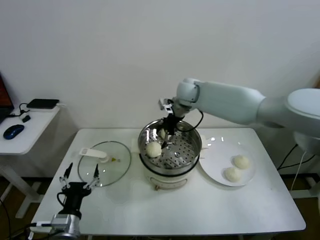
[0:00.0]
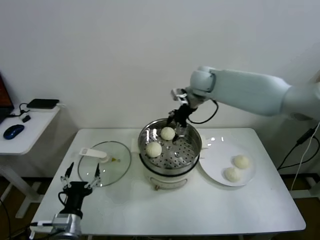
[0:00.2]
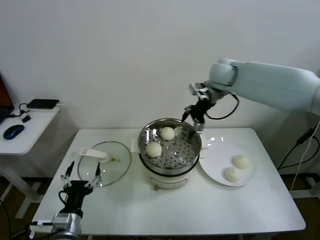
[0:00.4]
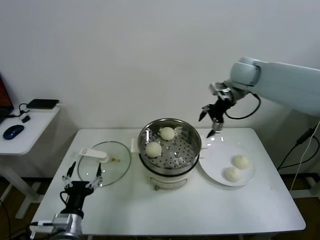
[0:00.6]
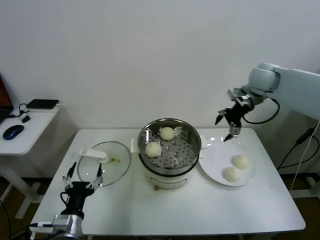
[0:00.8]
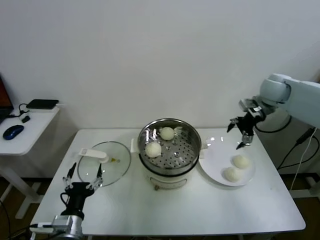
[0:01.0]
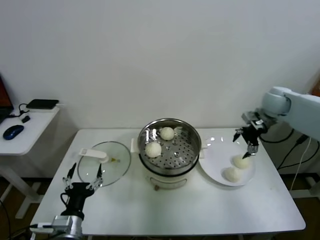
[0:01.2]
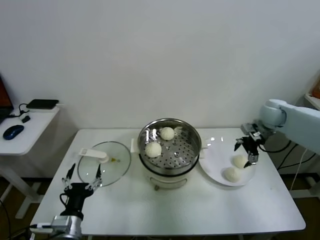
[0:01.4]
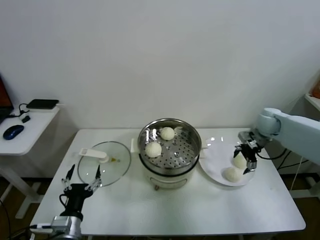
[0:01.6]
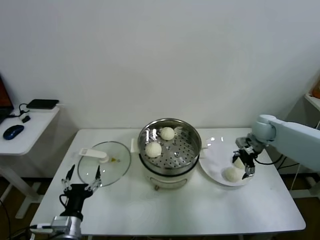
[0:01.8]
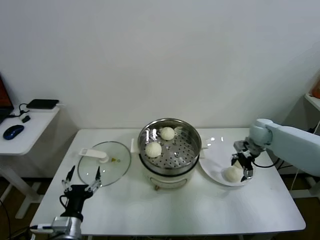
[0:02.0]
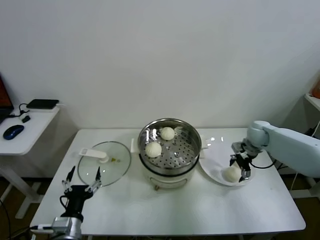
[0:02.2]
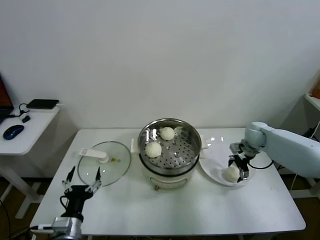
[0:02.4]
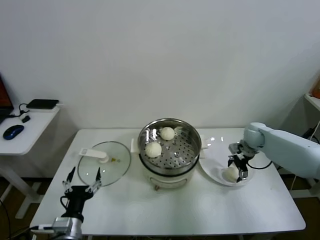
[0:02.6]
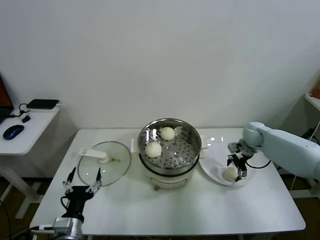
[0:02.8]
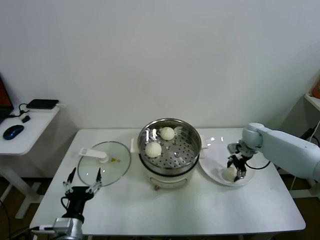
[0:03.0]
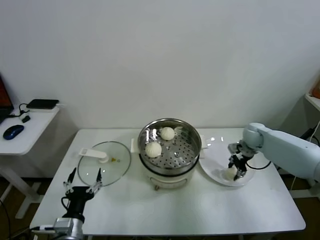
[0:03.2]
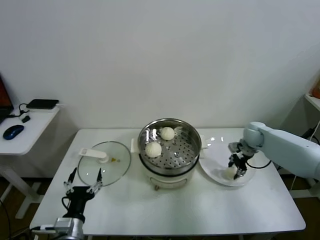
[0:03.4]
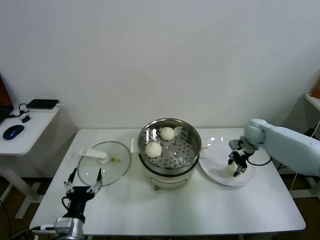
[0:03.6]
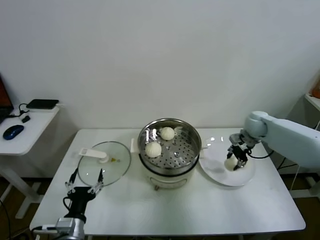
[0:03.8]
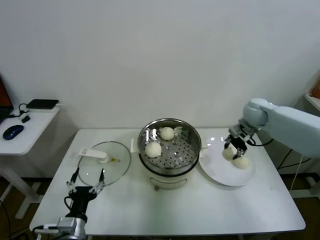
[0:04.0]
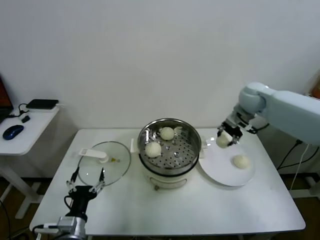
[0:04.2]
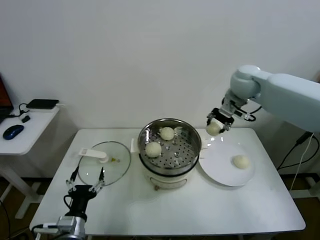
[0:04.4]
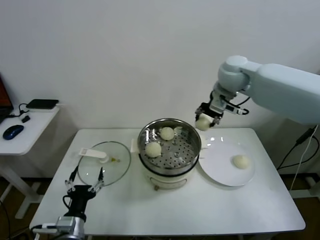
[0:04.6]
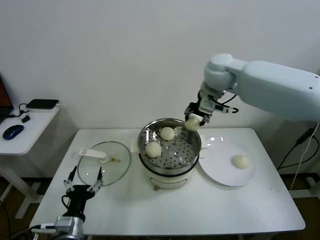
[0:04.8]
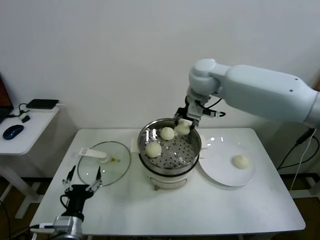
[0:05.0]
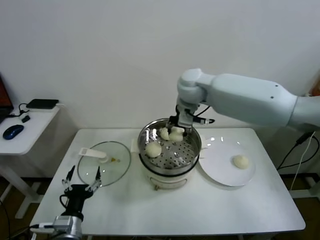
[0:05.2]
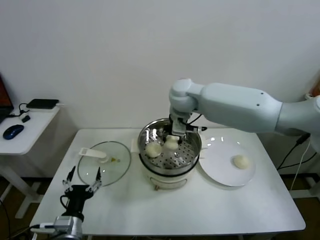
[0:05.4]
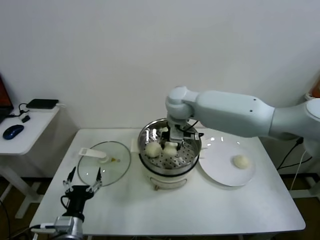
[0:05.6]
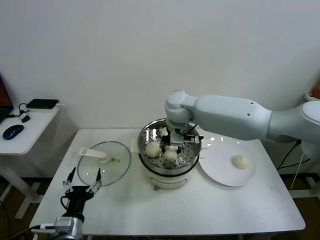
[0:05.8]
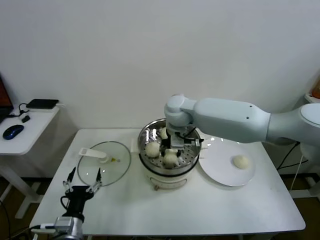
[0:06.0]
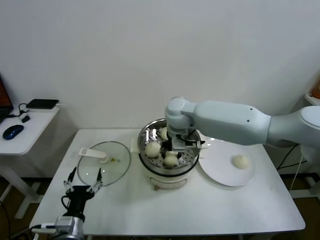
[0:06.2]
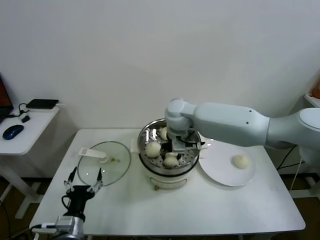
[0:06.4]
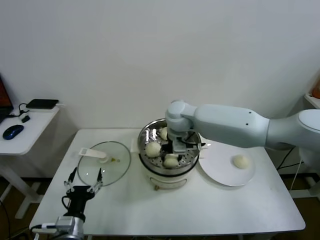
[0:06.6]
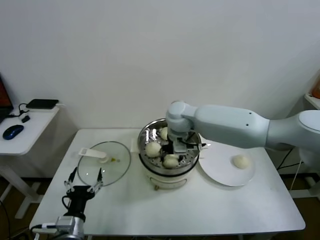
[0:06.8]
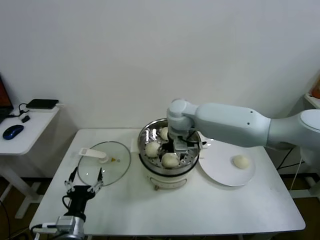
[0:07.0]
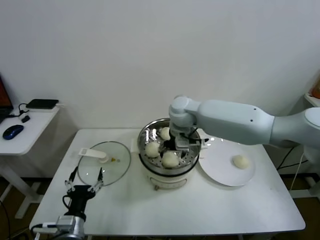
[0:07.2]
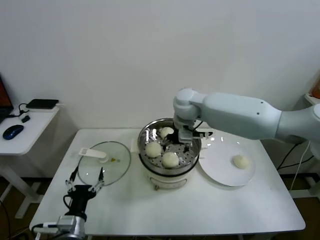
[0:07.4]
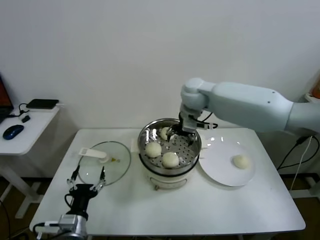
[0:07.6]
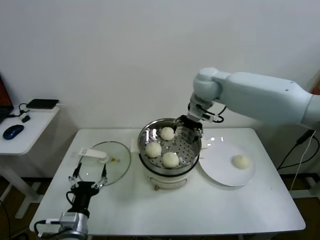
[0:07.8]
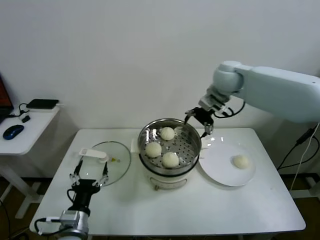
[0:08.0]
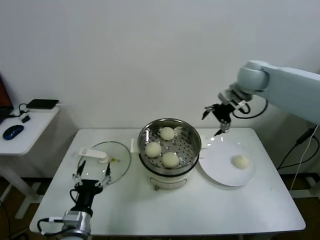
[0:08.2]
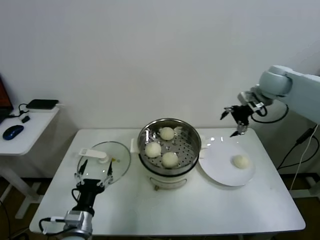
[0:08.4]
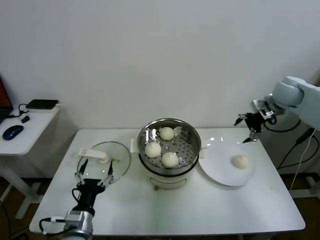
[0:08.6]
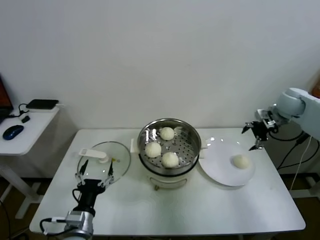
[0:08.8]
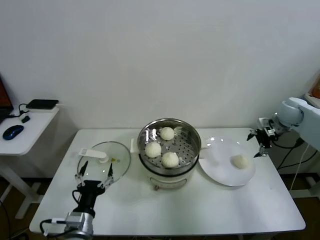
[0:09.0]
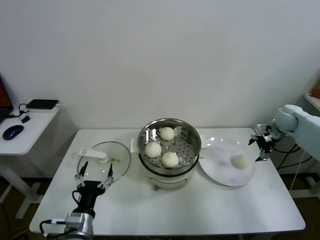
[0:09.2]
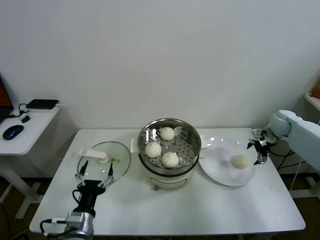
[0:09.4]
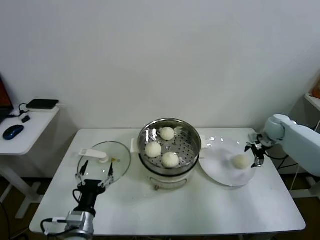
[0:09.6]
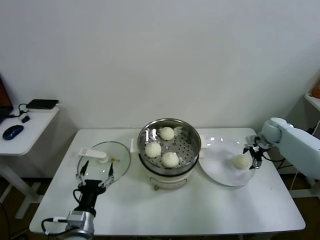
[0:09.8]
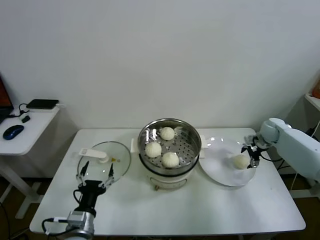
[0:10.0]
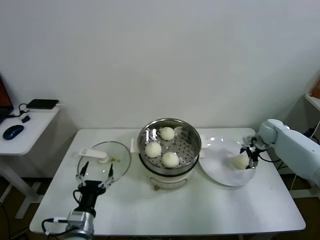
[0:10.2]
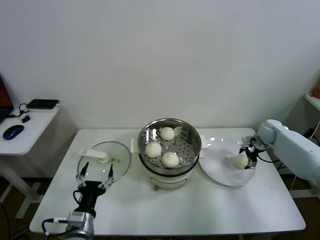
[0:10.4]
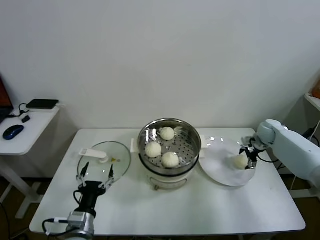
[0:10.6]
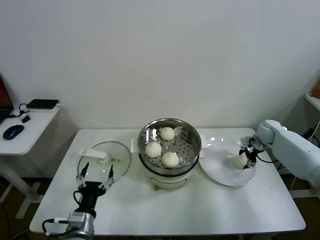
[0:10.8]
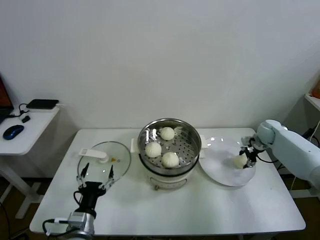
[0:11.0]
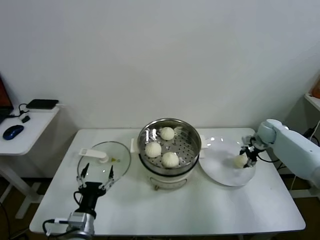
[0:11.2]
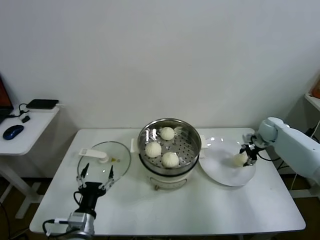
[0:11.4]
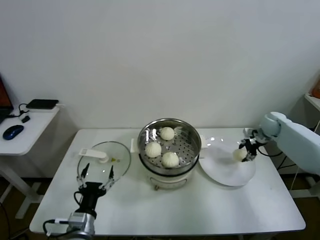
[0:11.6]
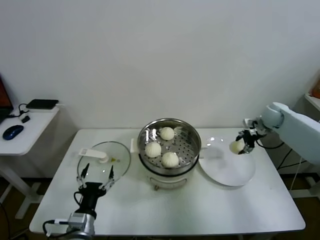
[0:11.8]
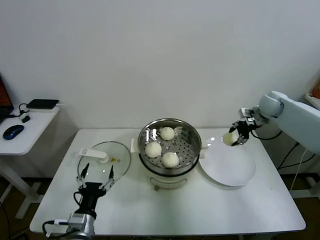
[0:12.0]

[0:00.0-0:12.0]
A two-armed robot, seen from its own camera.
Task of the whole recording: take steamed baozi put them in steamer.
Step, 0:00.0 to 0:03.2: Grasp the baozi in the plate with right gripper.
Step, 0:03.6 to 0:07.0: Place the baozi on the steamer with right gripper.
Step, 0:07.2 to 0:11.0: Grasp the baozi in the plate with right gripper.
0:00.0 to 0:01.6: The right gripper heads to the right, covering approximately 30 cm.
0:01.6 to 0:03.0: The right gripper heads downward, covering roughly 10 cm, and closes up.
0:03.0 to 0:04.4: The right gripper moves upward and to the left, some 30 cm, and closes.
0:04.4 to 0:06.0: The right gripper is displaced to the left and downward by some 20 cm.
0:06.0 to 0:07.6: The right gripper heads to the right, covering some 5 cm, and opens.
0:07.6 to 0:09.0: The right gripper heads to the right, covering approximately 35 cm.
0:09.0 to 0:10.4: The right gripper shifts some 15 cm downward.
0:10.4 to 0:12.0: The right gripper is displaced upward by about 15 cm, and closes its fingers.

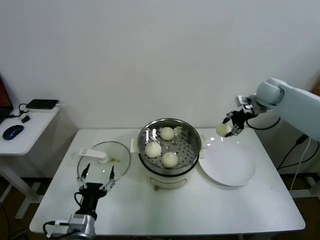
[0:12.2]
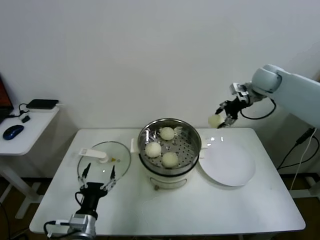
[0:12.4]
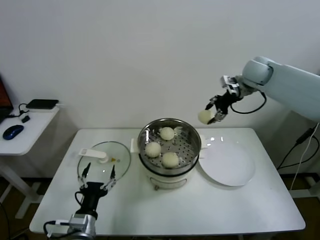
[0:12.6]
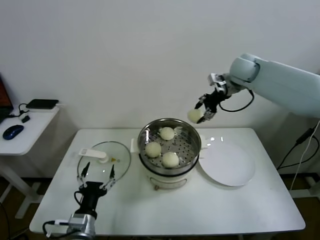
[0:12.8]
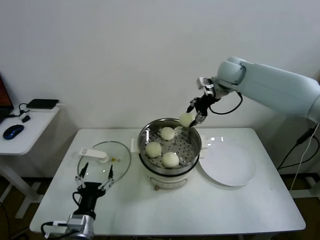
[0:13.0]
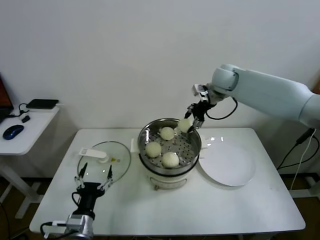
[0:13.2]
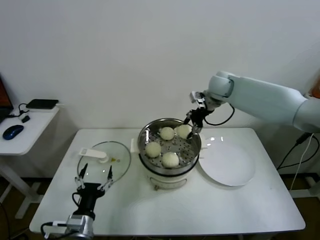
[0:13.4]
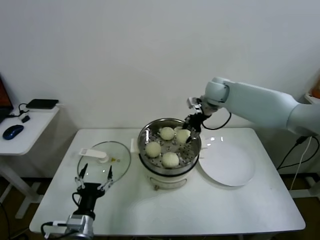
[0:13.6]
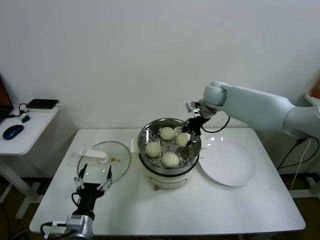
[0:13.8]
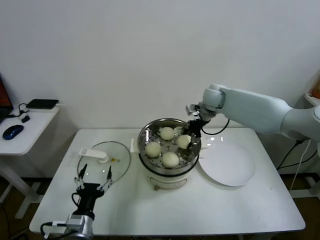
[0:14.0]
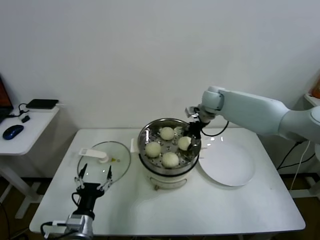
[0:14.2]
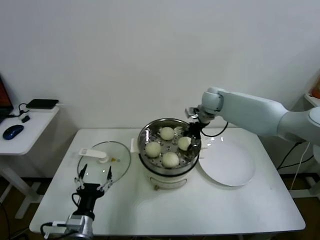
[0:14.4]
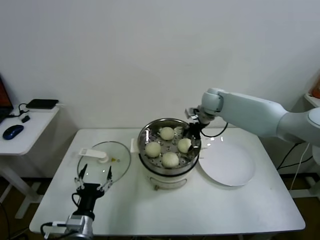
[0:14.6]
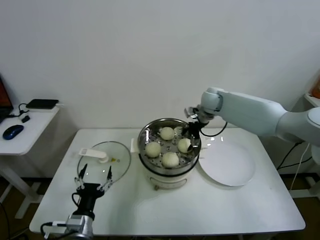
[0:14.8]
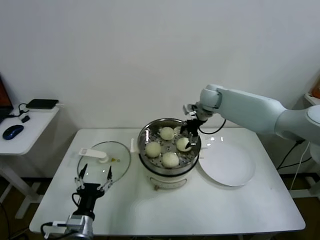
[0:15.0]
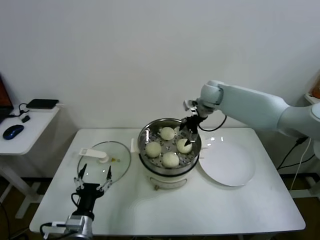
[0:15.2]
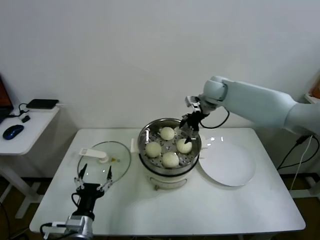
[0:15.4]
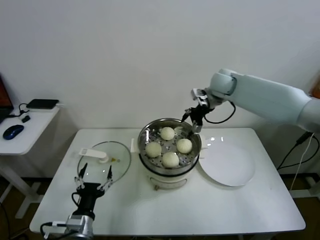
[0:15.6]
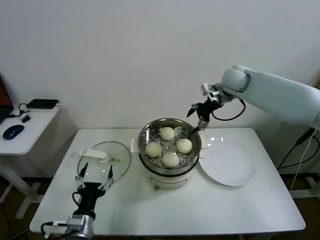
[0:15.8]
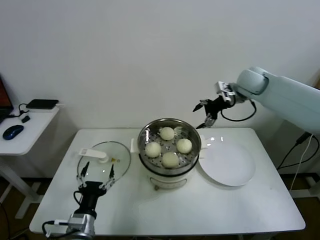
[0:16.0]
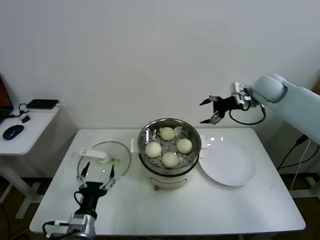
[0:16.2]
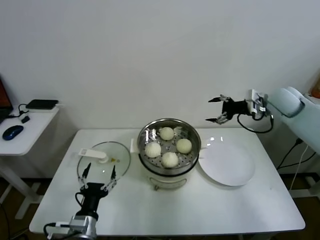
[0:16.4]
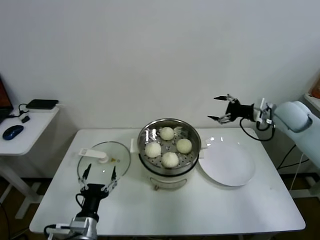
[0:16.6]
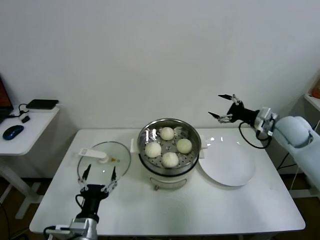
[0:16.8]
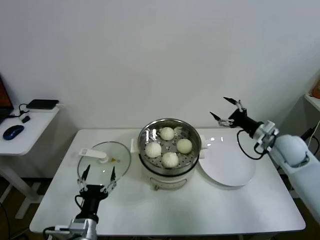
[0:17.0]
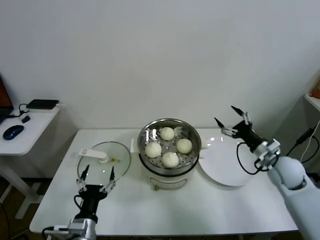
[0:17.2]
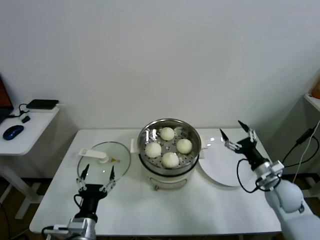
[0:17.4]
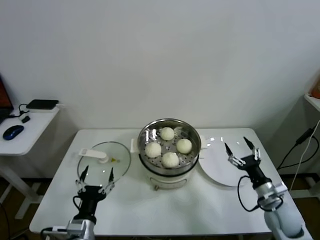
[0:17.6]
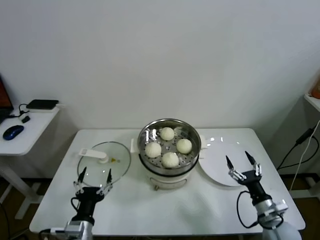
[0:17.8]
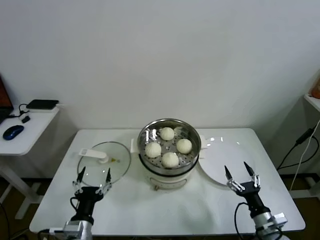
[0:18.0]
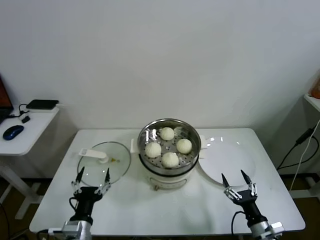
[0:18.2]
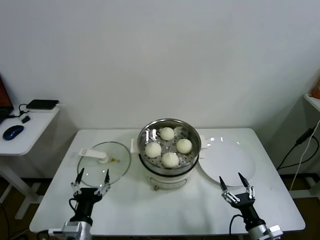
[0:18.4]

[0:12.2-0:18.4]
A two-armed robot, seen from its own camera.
Task of the whole recording: take steamed baozi put them in steamer.
Step, 0:12.2 to 0:14.8: Place the baozi on the steamer with right gripper.
0:12.2 to 0:13.8: The right gripper travels to the left by roughly 20 cm.
0:13.8 to 0:15.4: The right gripper opens.
0:15.4 to 0:16.8: The right gripper heads to the right and backward, covering approximately 25 cm.
0:16.8 to 0:18.4: The right gripper goes about 40 cm backward and downward.

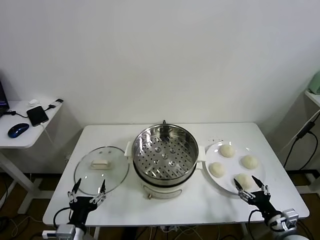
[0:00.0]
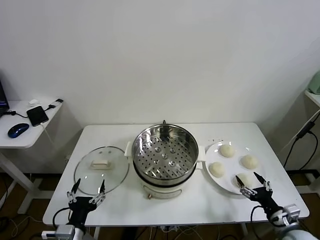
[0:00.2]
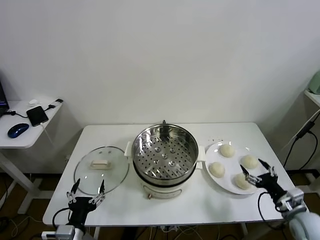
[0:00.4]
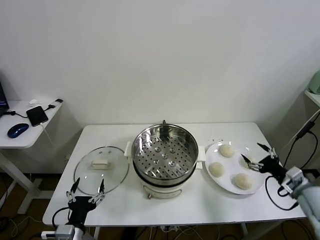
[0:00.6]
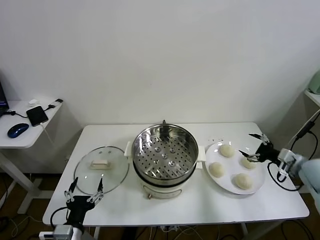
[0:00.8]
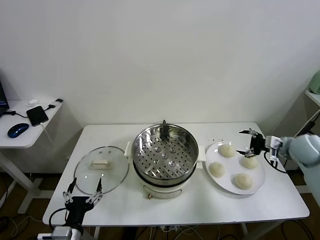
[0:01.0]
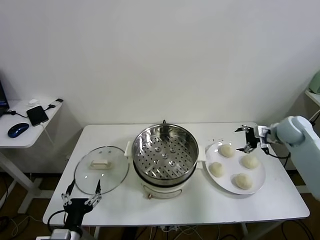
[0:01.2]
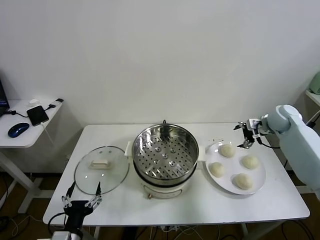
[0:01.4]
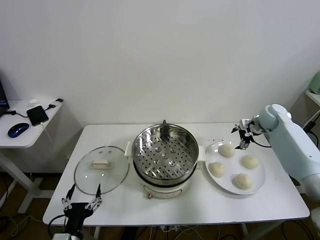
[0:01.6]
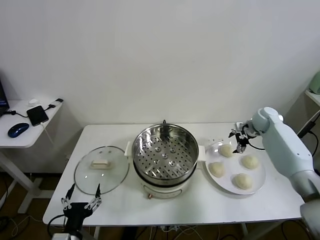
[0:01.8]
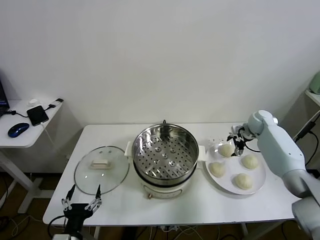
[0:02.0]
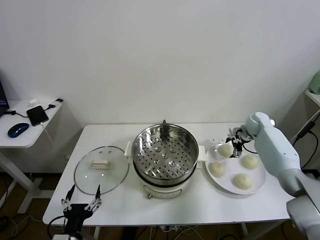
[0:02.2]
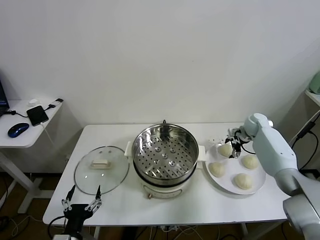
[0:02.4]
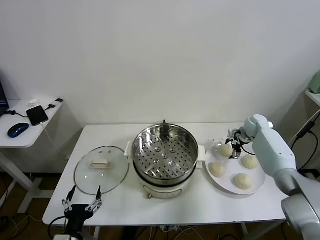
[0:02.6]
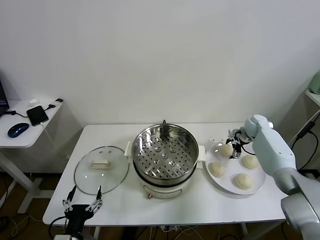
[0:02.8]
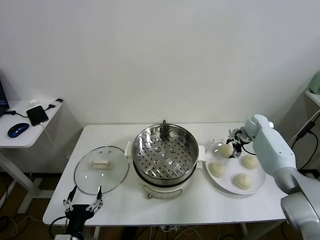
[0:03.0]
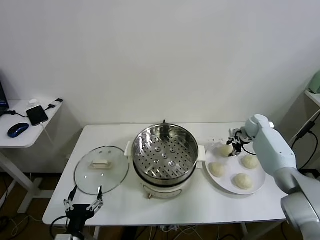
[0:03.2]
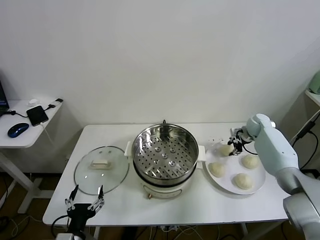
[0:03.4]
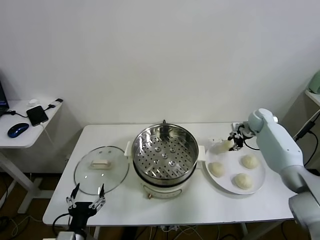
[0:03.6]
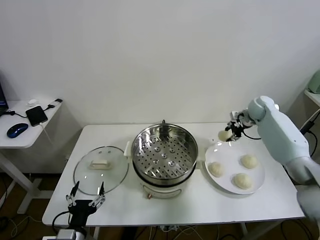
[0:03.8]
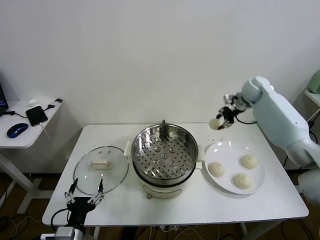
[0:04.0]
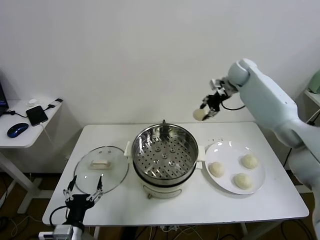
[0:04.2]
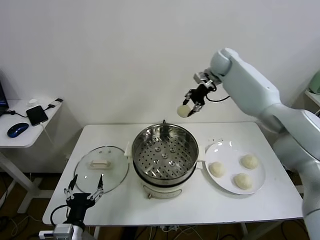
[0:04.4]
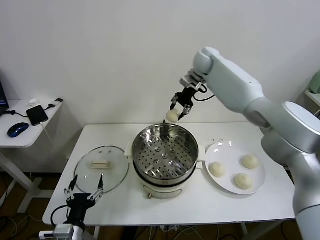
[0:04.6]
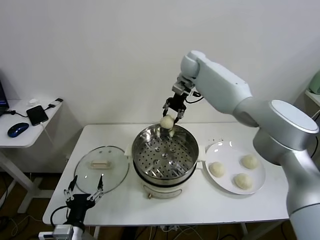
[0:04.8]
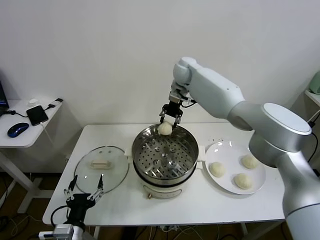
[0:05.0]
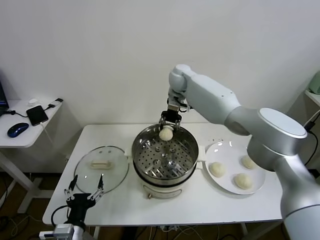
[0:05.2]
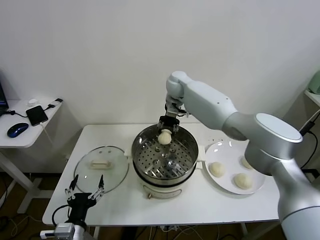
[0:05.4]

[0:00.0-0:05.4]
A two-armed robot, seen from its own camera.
Task of the whole recording: take steamed baozi put them in steamer.
Step, 0:00.0 to 0:03.0: Grasp the baozi in the plate with right gripper.
0:01.4 to 0:02.8: The right gripper goes about 10 cm downward.
0:02.8 to 0:04.0: The right gripper travels upward by some 20 cm, and closes up.
0:04.0 to 0:05.4: The right gripper shifts about 25 cm to the left.
